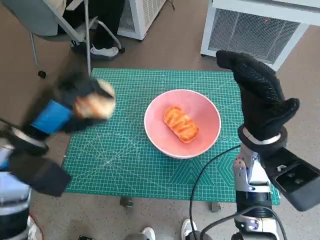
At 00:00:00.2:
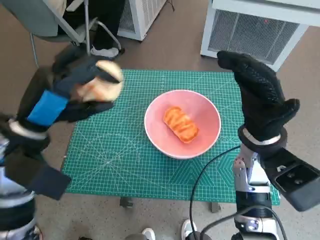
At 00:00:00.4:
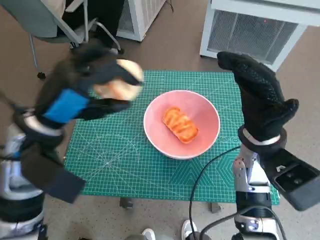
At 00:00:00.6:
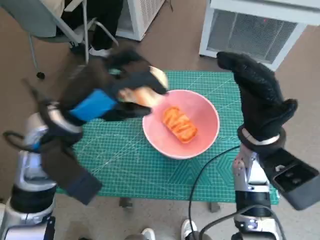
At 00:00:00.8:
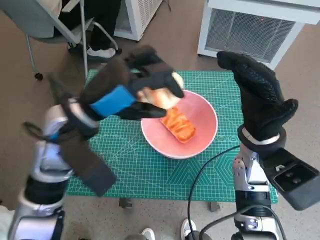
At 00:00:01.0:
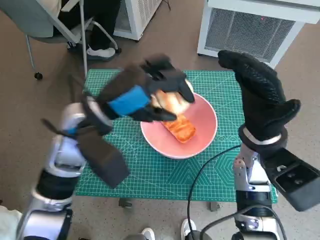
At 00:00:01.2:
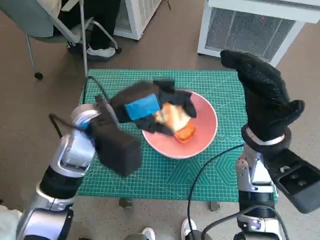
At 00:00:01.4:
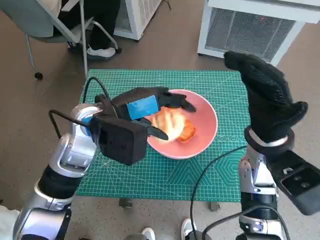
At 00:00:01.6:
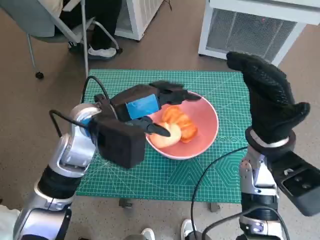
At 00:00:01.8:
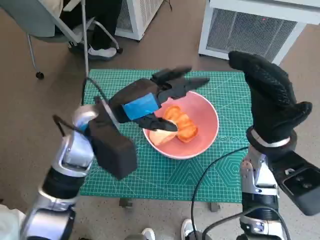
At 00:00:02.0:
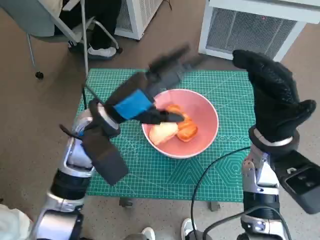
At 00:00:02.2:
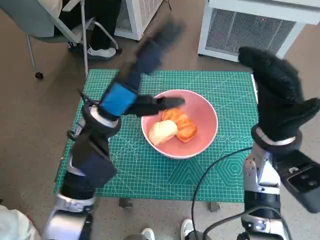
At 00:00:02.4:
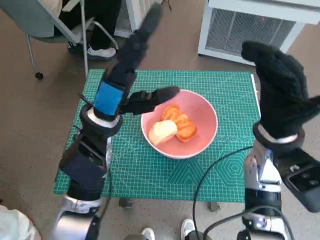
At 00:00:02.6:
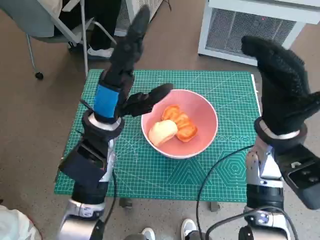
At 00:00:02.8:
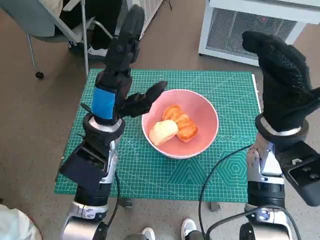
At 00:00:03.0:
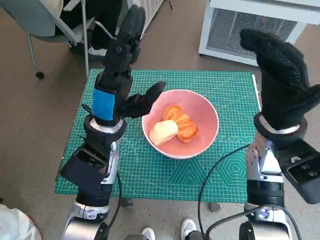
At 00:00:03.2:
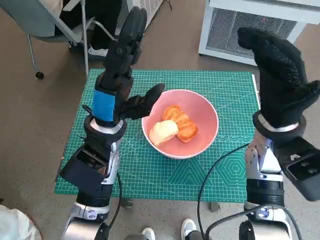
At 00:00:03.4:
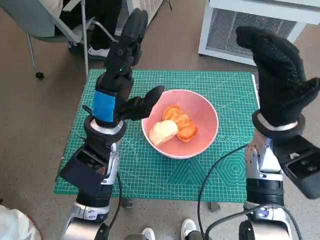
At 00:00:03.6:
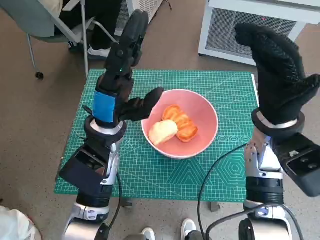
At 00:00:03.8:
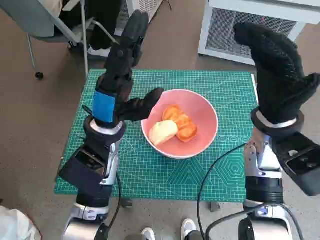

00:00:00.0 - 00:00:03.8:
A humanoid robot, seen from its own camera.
Task of the whole recording: Push the bowl to the center of the table and put the bread into the bowl.
Step, 00:00:00.0 - 00:00:01.6: Place the round bread in pink bowl with left hand.
00:00:00.0 - 00:00:01.2: The left hand is displaced to the right and forward by roughly 10 cm.
00:00:02.6 - 00:00:03.8: The hands make only small movements.
